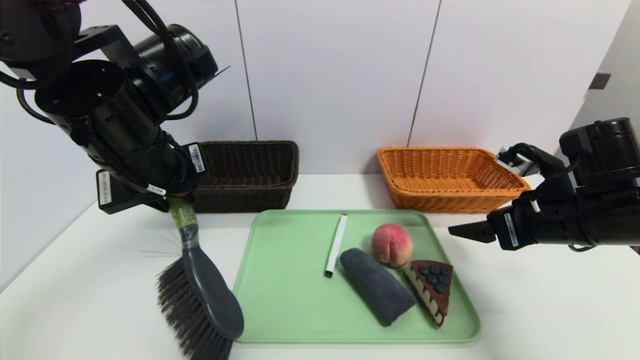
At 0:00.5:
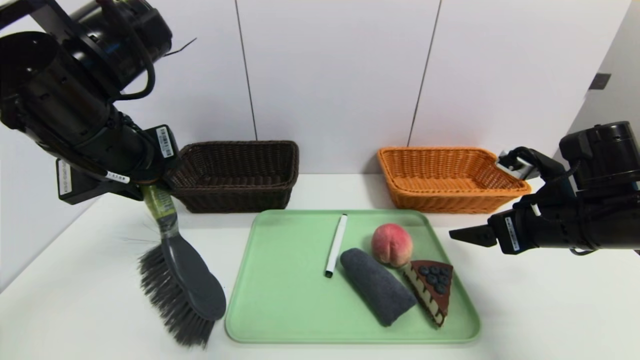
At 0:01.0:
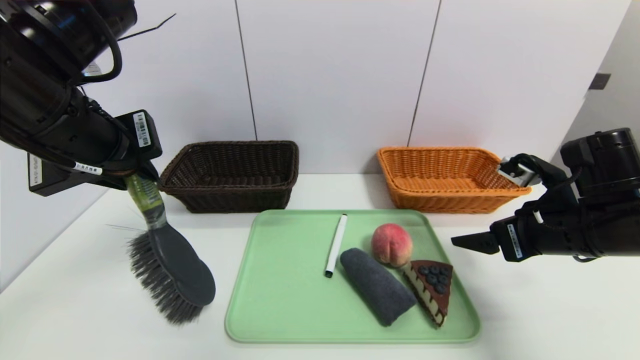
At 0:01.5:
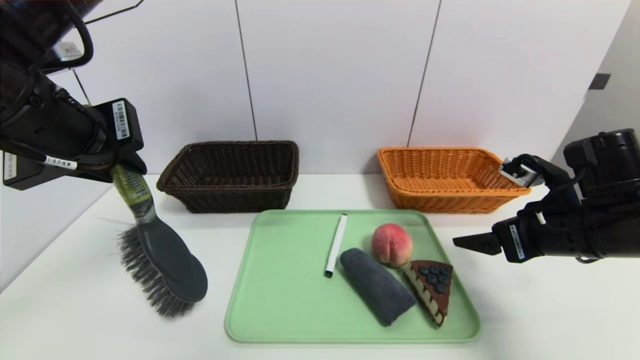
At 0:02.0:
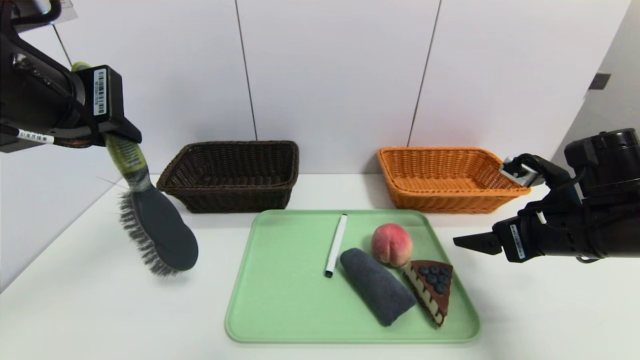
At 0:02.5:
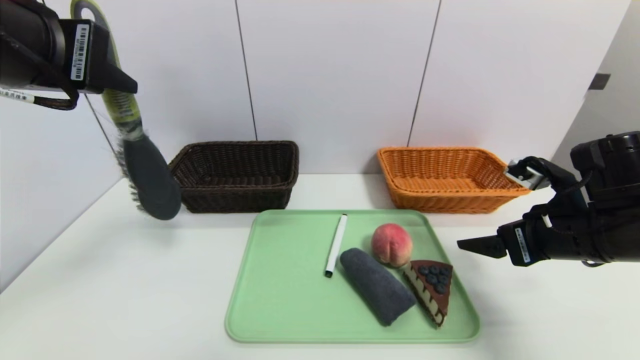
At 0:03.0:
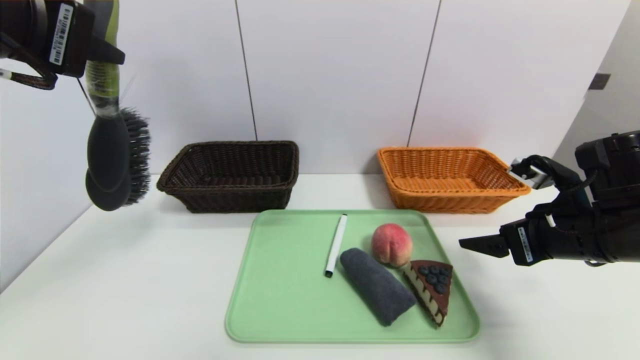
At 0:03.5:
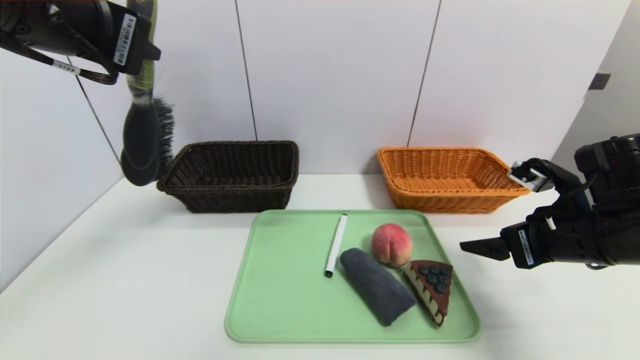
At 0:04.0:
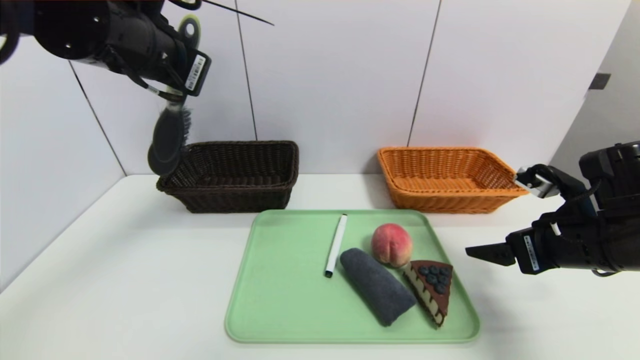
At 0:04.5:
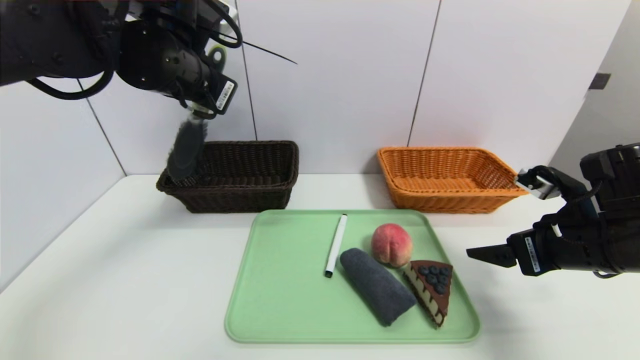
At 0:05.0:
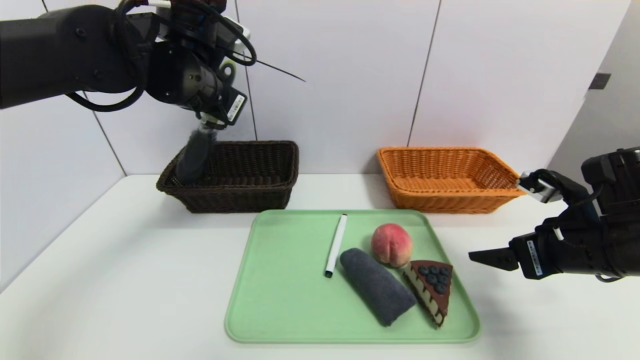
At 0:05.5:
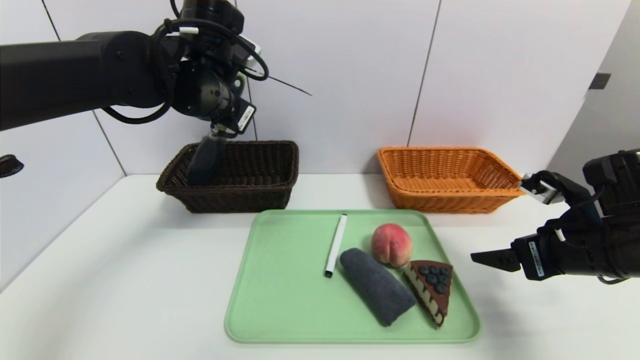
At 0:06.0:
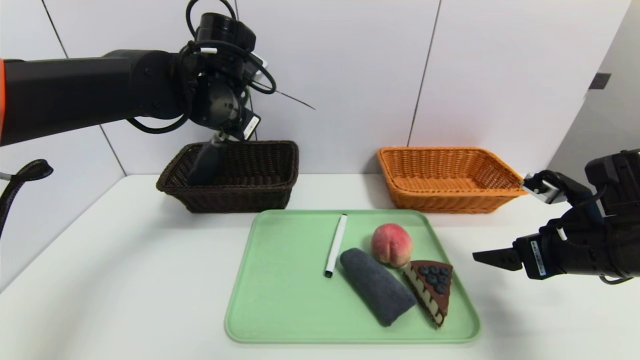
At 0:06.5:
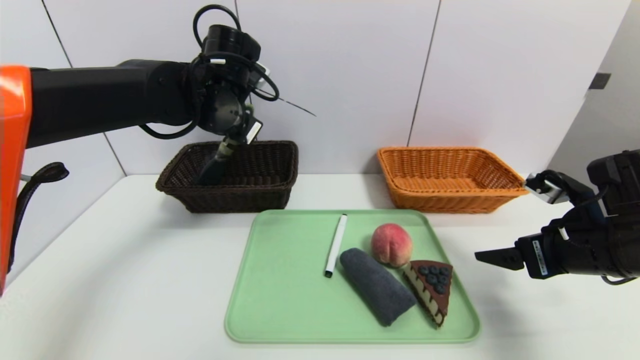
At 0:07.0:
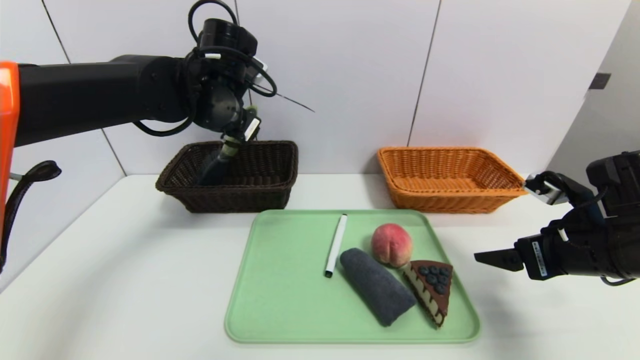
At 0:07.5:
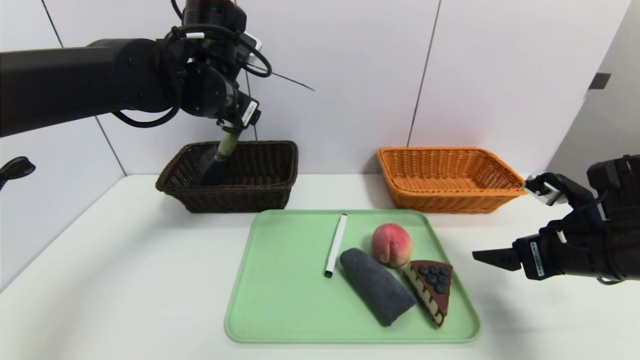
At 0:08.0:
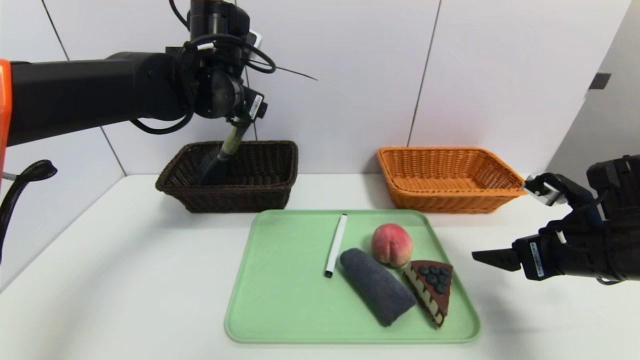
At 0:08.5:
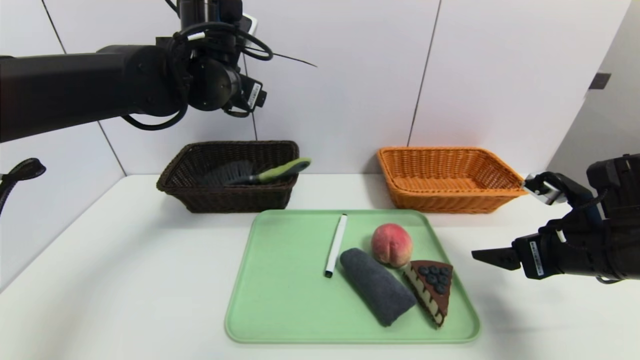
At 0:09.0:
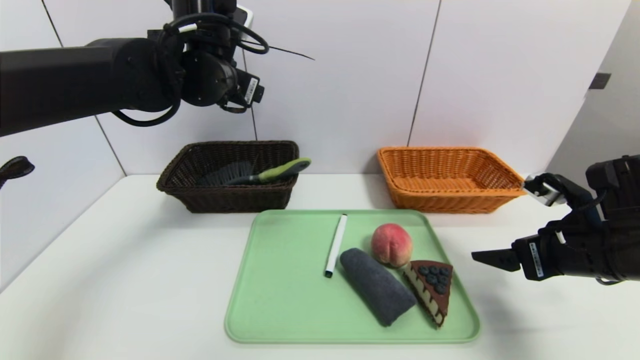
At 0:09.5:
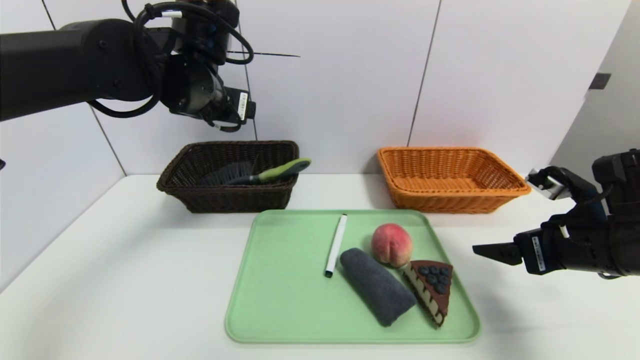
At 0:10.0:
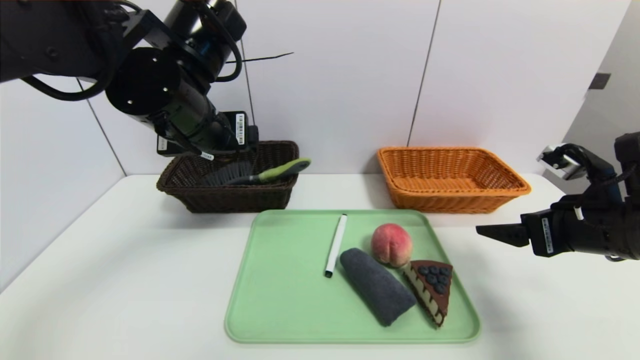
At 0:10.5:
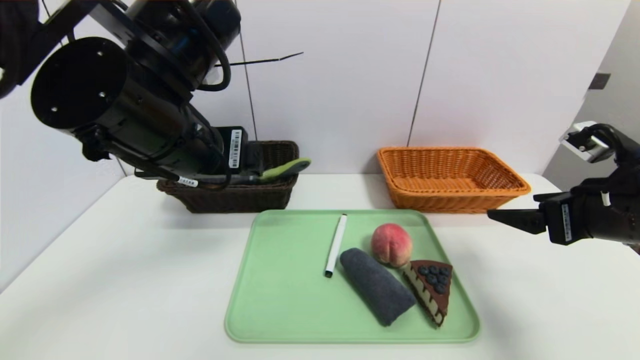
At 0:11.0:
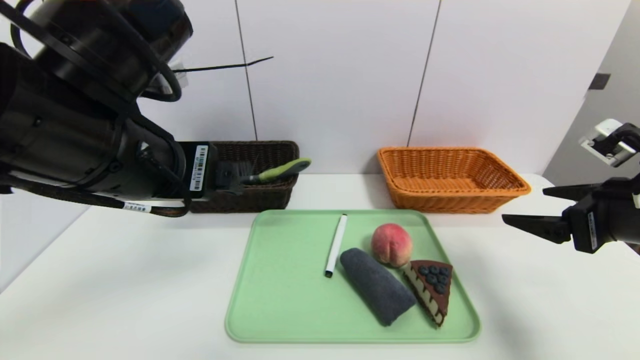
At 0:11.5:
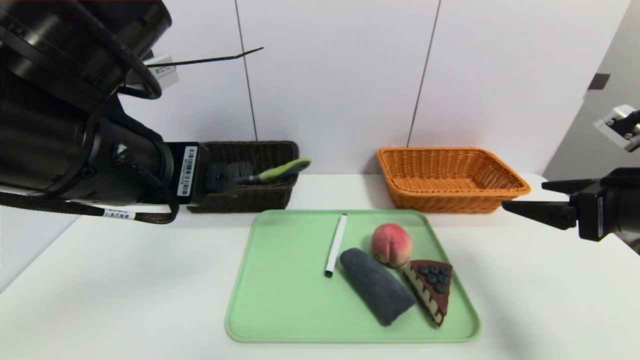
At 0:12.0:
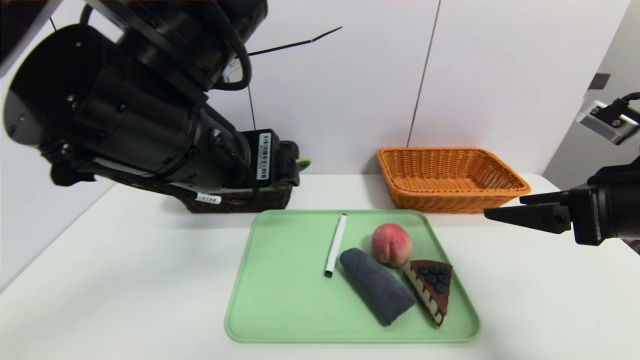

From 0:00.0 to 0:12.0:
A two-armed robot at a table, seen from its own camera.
Task of the whole recording: place the food in the right basket with the right gripper, and place the non food items in the left basket with the left gripper.
Step, from 0:00.0 to 0:08.5: Grasp the brush and put it in the left basket.
From 0:00.0 to 0:02.0: The left gripper moves upward and backward, approximately 10 cm.
From 0:02.0 to 0:04.0: The left gripper goes some 10 cm forward.
From 0:04.0 to 0:06.0: The left gripper shifts approximately 10 cm forward and downward.
From 0:06.0 to 0:08.0: The left gripper opens.
From 0:08.0 to 0:10.0: The left gripper travels backward by approximately 10 cm.
From 0:10.0 to 0:12.0: The left gripper travels backward by roughly 10 cm. The right gripper moves upward, approximately 5 cm.

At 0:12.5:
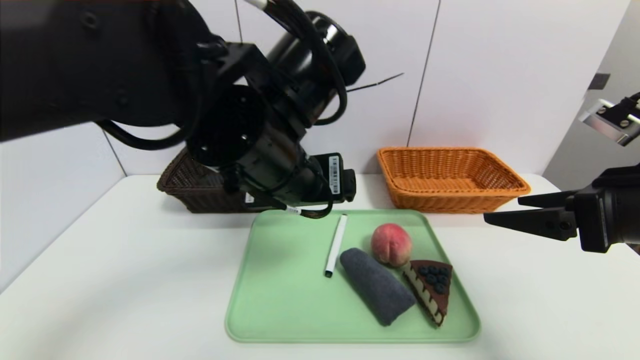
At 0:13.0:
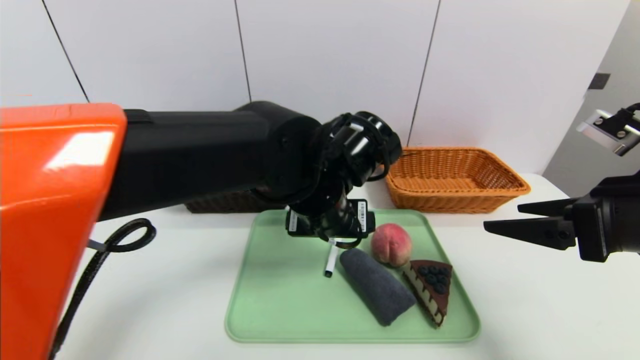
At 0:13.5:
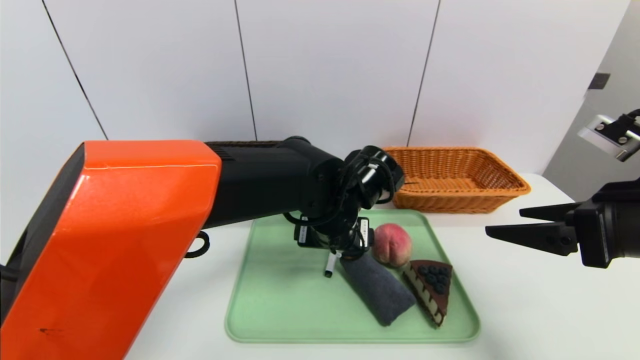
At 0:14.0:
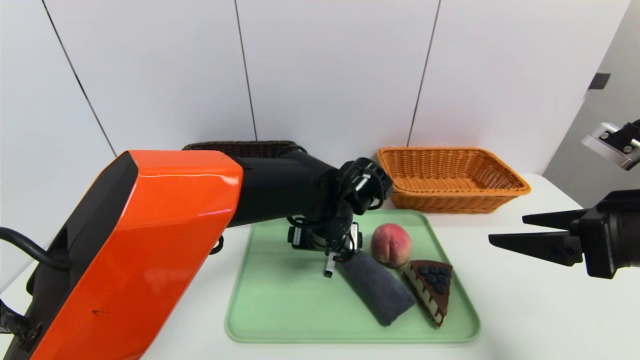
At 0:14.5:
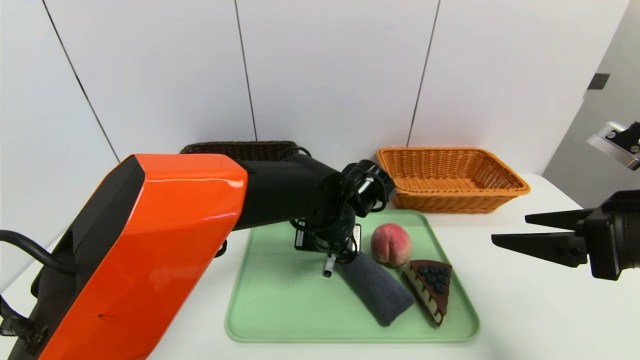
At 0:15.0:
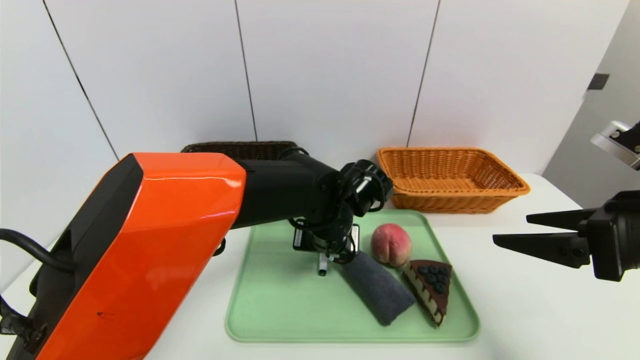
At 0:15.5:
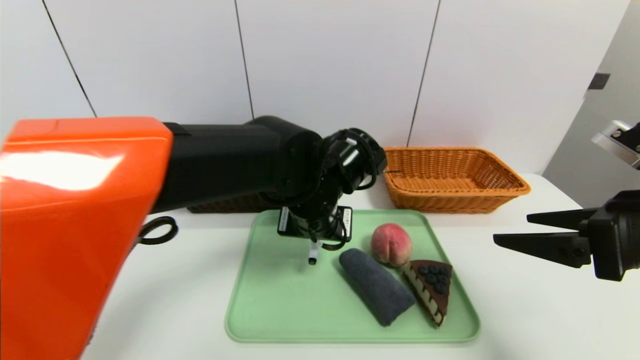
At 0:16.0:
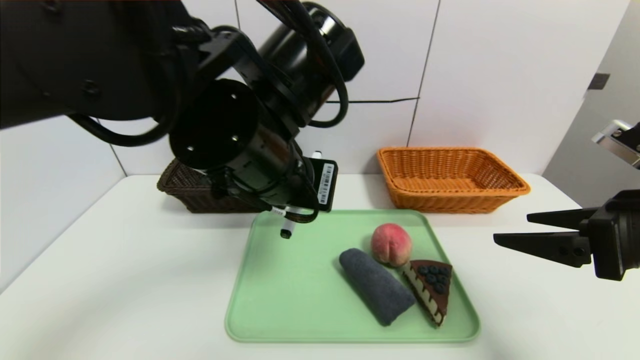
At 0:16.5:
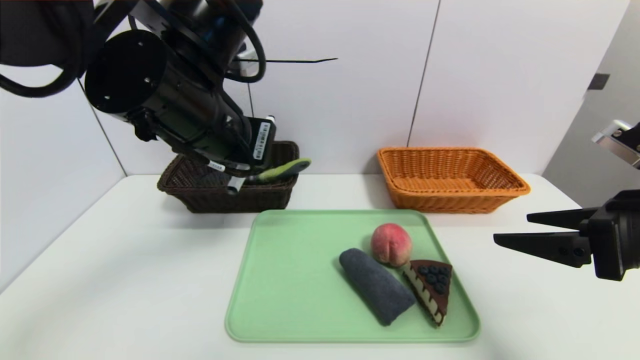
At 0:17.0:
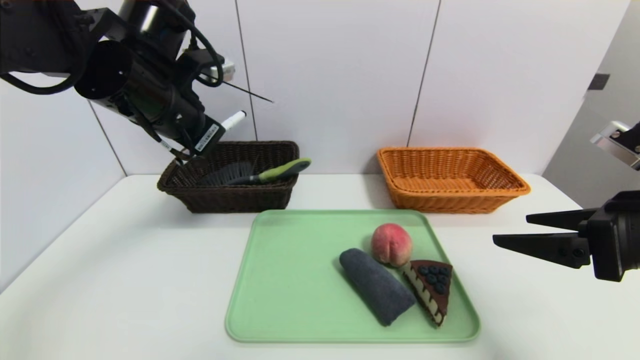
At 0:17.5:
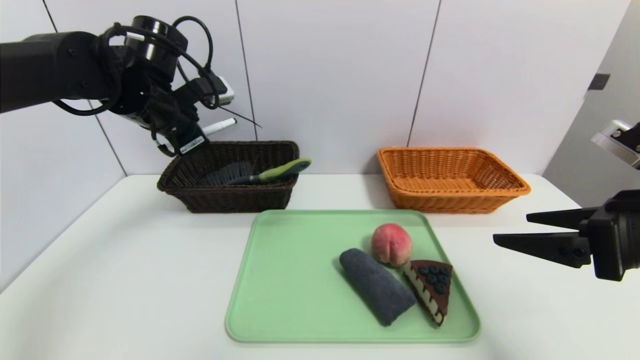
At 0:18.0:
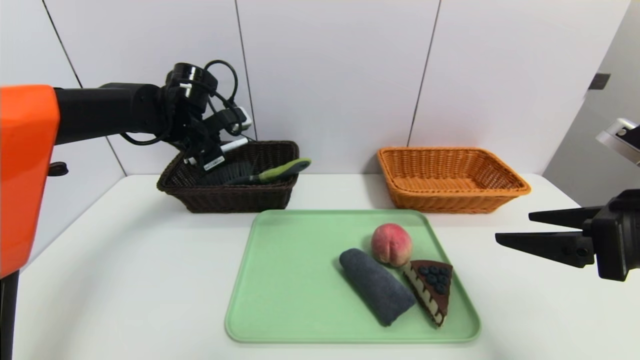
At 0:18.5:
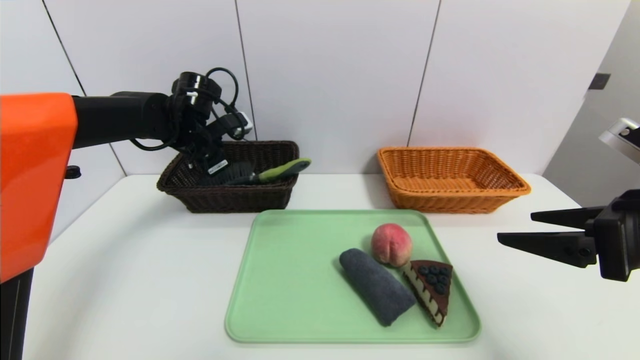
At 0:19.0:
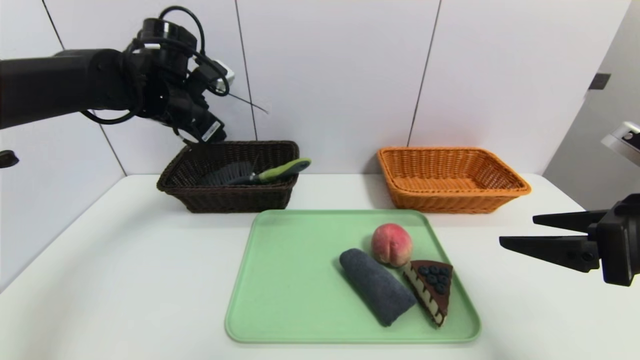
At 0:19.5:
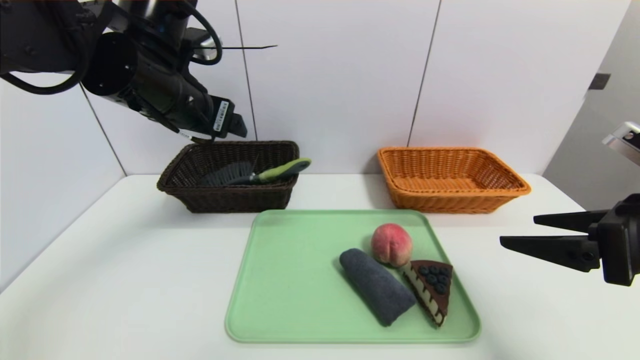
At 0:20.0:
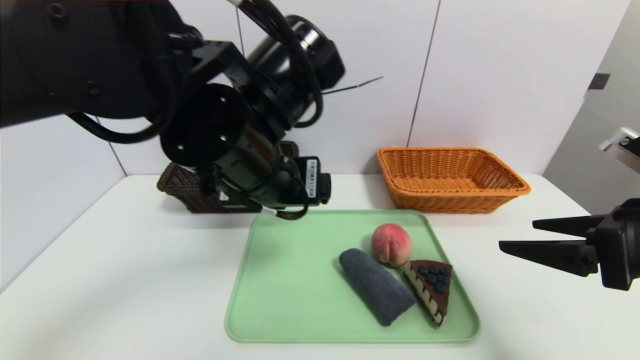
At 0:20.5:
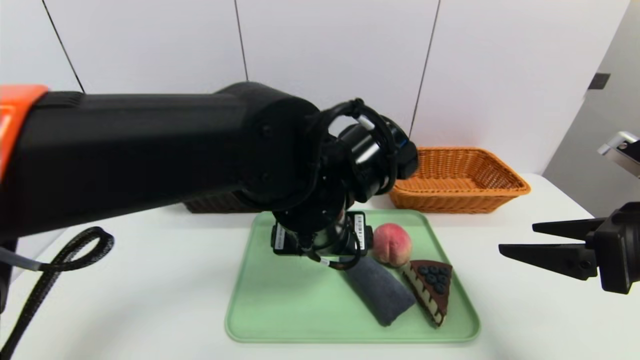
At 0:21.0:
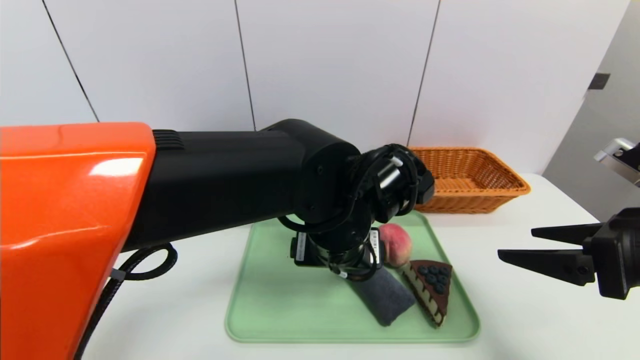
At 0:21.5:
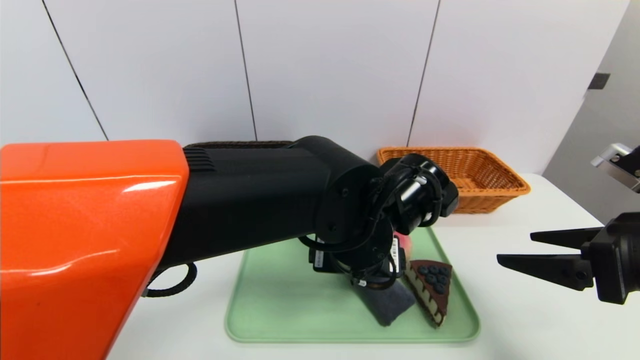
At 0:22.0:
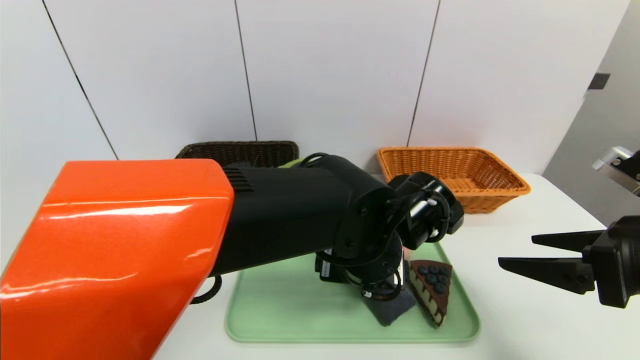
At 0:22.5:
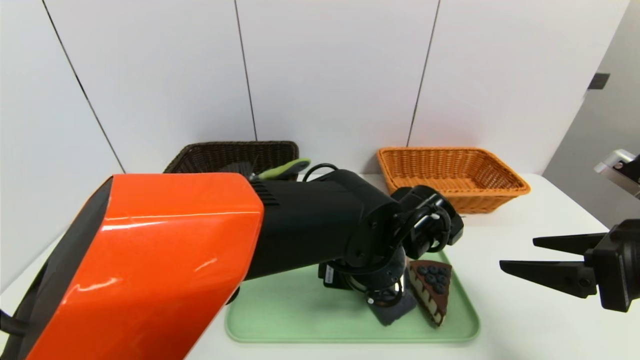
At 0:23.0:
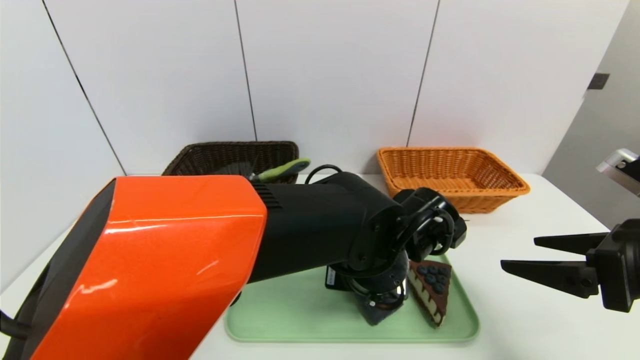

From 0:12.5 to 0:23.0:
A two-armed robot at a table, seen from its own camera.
Task of the whole recording: place the food in the right basket with the right gripper, and place the non food items in the left basket with the left gripper.
Step, from 0:12.5 to 0:18.5: Grasp the black marker and put it in the left basket.
From 0:12.5 to 0:14.5: The left gripper moves downward, forward and to the right, roughly 20 cm, and closes up.
From 0:14.5 to 0:16.5: The left gripper travels upward and to the left by roughly 25 cm, and closes.
From 0:16.5 to 0:19.0: The left gripper moves forward and to the left, approximately 20 cm, and opens.
From 0:19.0 to 0:21.0: The left gripper goes approximately 30 cm to the right and backward.
From 0:21.0 to 0:23.0: The left gripper moves about 5 cm, and closes its fingers.
